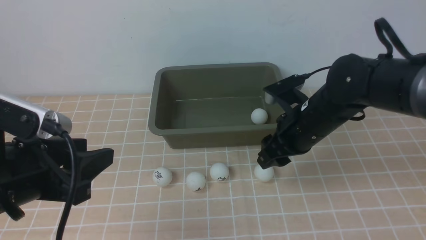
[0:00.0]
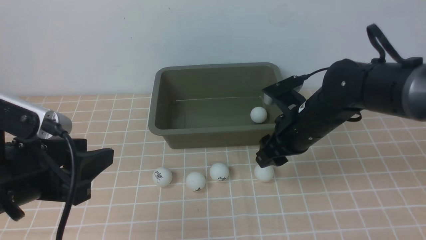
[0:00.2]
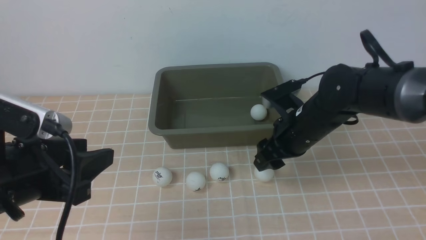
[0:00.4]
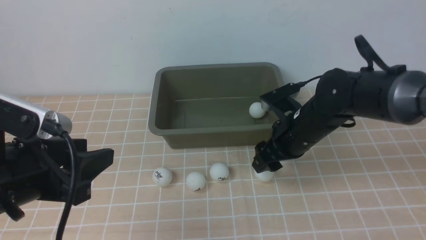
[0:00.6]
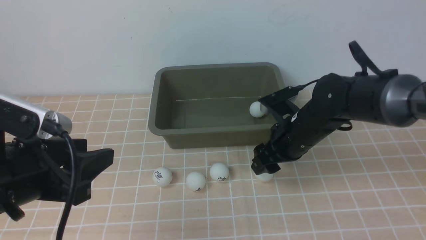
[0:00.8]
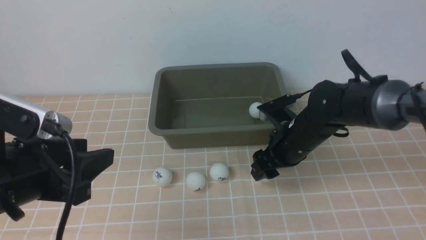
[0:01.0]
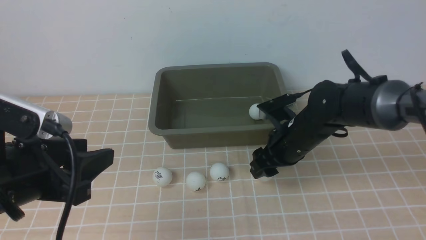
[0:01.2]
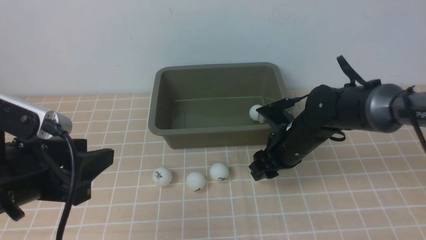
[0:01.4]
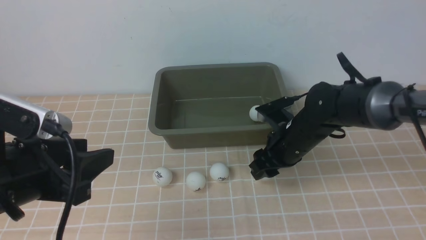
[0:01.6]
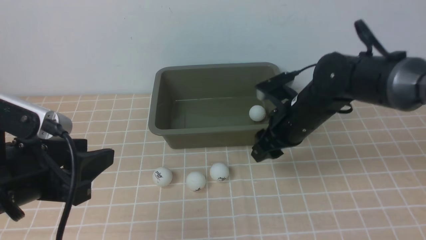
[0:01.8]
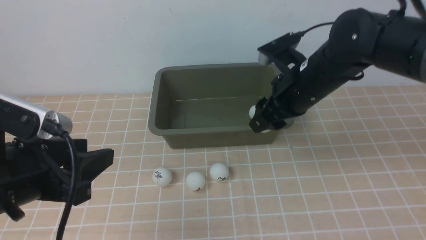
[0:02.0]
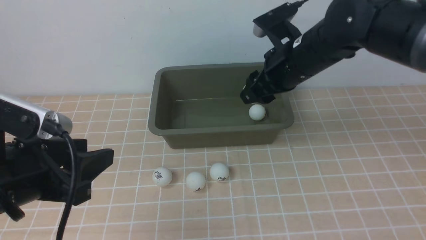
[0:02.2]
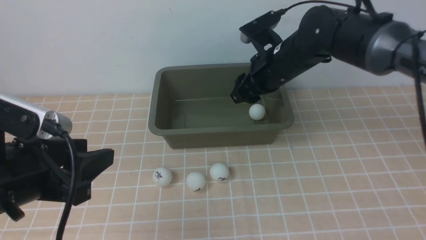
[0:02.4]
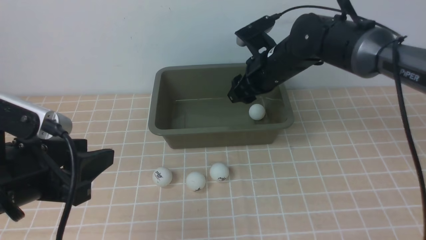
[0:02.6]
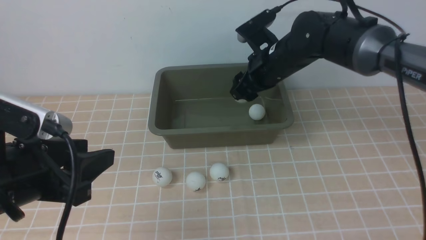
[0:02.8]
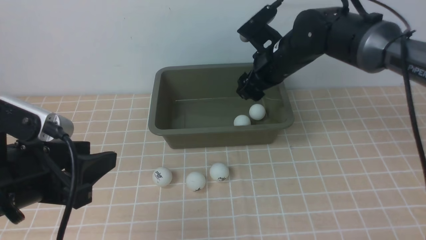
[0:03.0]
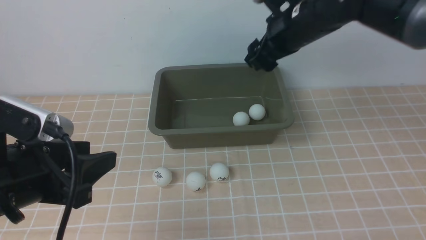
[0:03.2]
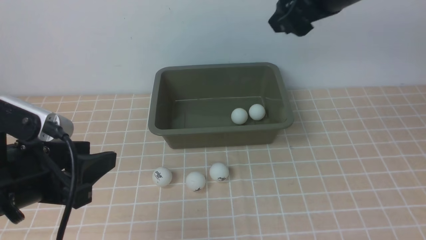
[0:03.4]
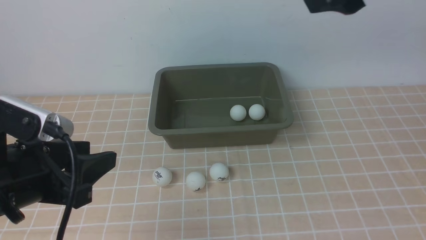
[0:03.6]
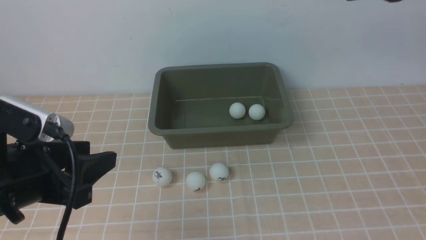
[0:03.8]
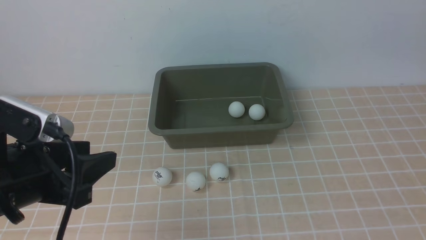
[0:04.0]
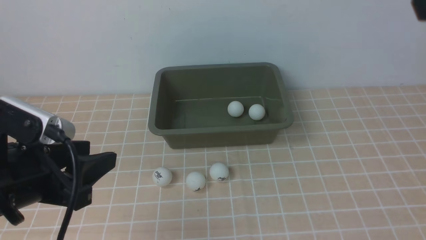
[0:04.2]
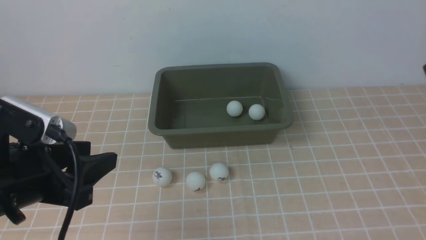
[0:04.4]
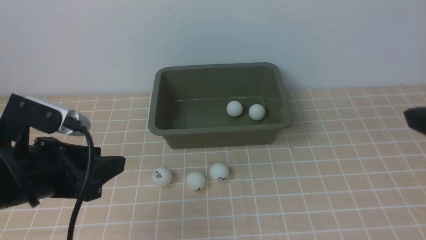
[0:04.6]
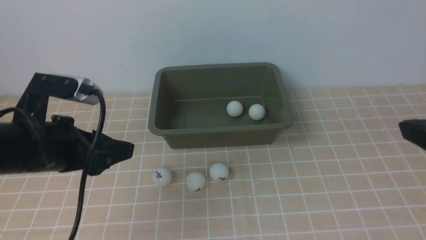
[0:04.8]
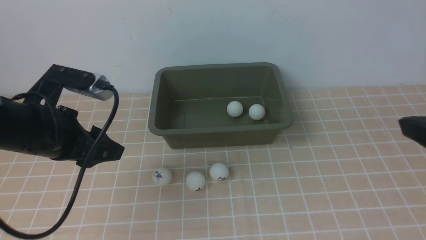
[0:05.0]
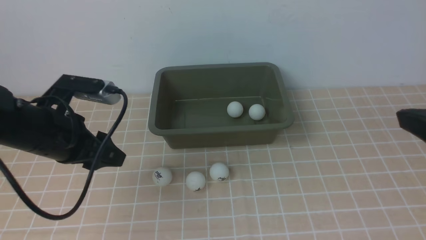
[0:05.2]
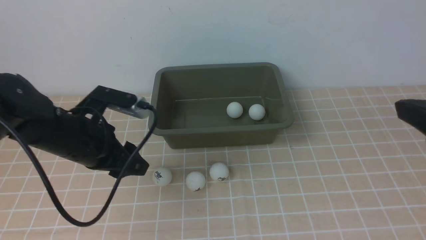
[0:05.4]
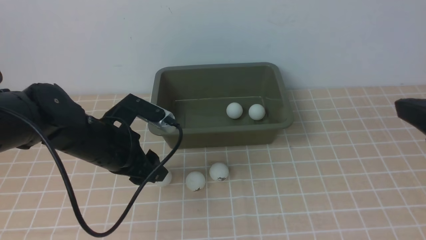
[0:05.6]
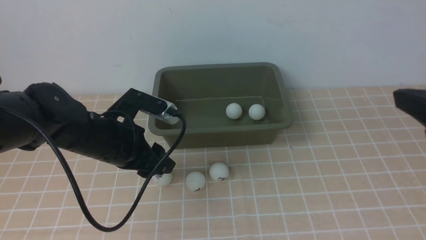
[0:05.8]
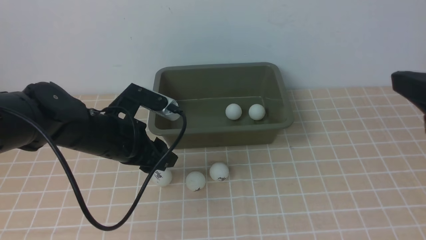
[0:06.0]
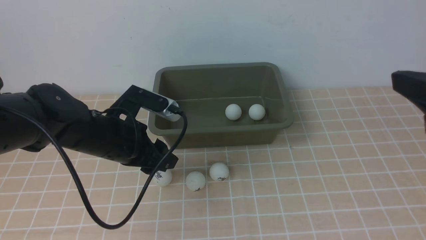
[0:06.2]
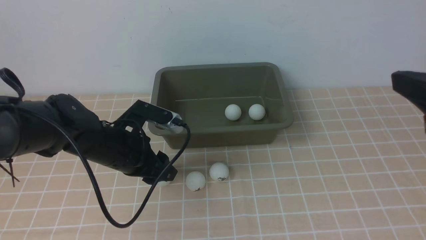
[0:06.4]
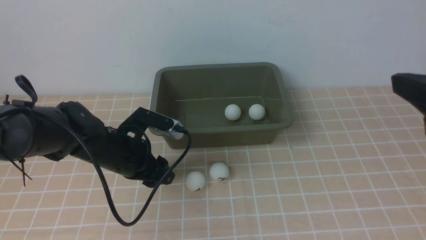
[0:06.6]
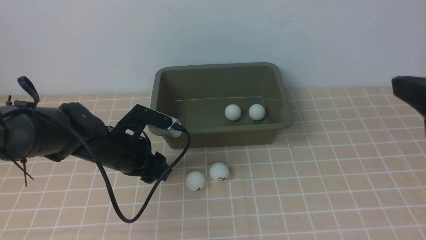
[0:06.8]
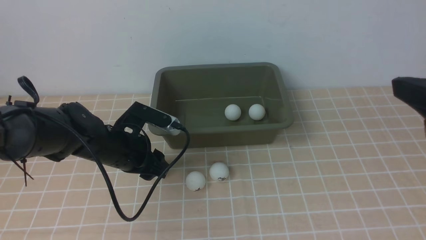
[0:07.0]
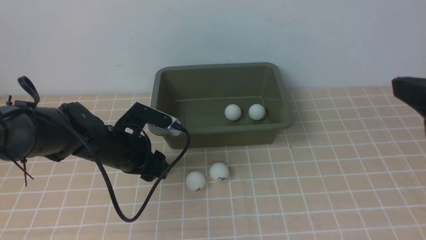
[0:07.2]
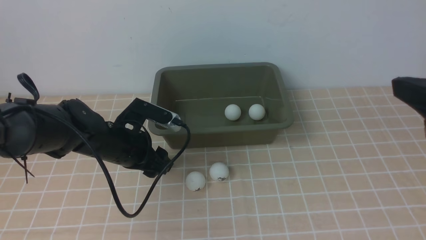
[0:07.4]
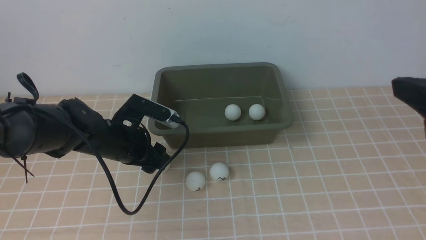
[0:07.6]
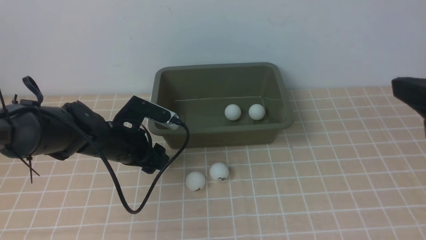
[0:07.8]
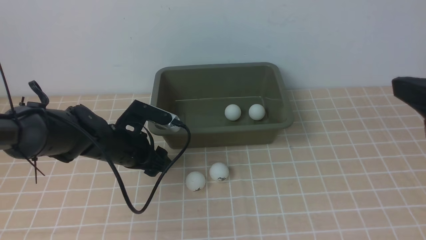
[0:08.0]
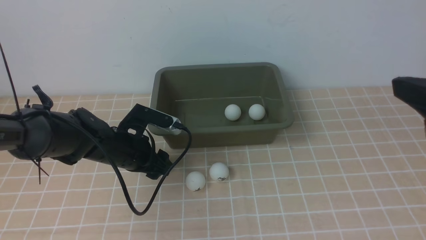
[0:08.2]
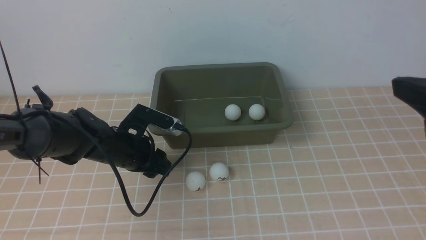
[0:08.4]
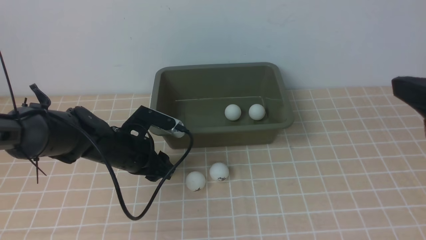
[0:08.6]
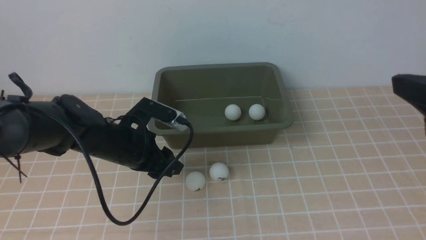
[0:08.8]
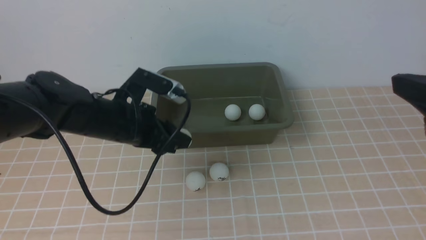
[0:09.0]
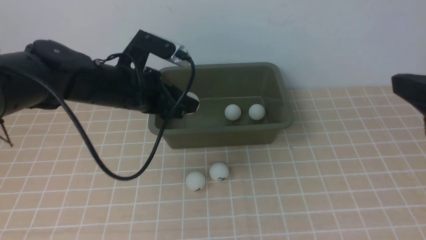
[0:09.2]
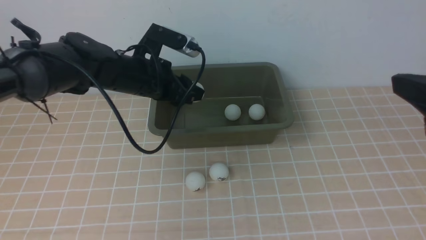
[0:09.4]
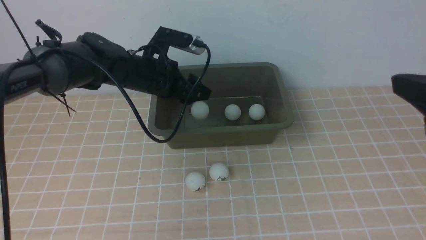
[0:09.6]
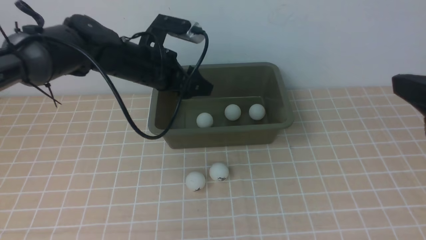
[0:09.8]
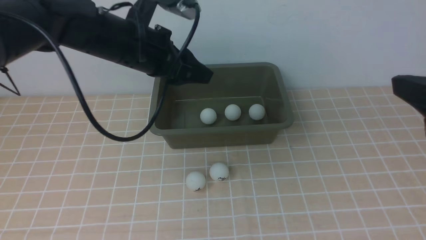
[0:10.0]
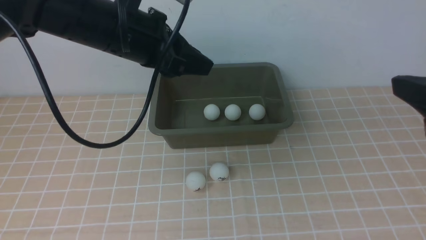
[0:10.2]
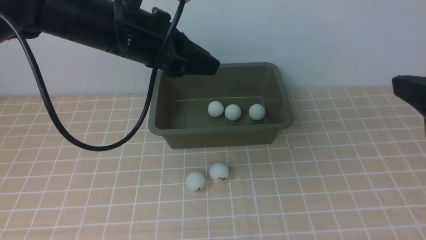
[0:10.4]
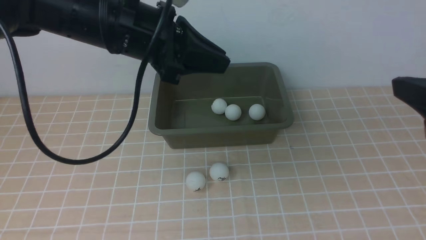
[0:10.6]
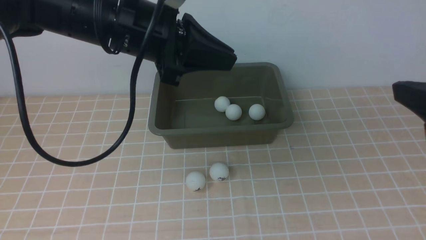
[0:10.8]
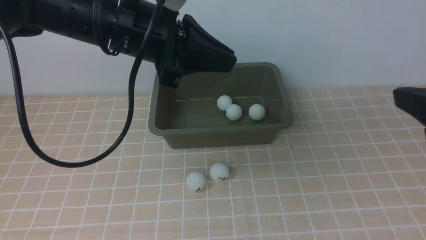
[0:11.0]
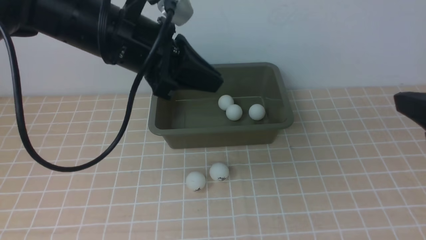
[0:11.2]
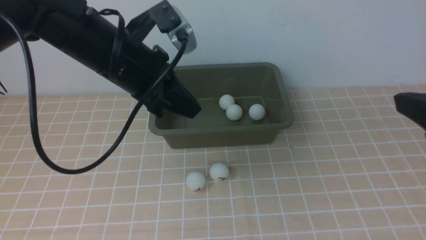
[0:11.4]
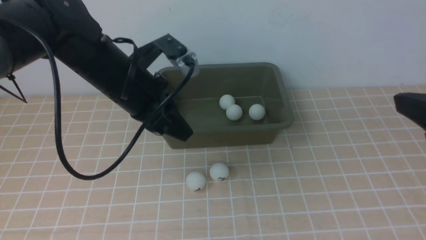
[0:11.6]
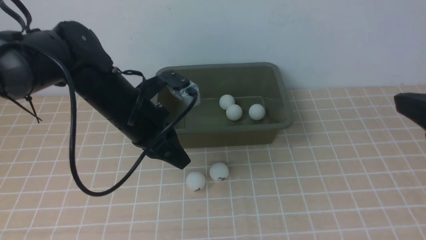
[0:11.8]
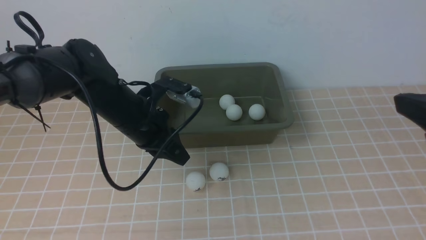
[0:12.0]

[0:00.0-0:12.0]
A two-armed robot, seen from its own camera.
Step, 0:00.0 to 0:01.8: use the right arm to clamp the table tennis ball closest to it.
Step, 0:02.0 to 0:03.2: use the right arm to put the table tennis ball into the box.
Step, 0:03.4 to 0:08.6: use the left arm to clamp the table tennis ball closest to it.
Step, 0:08.8 to 0:10.0: use the left arm to put the table tennis ball into the box.
0:00.0 to 0:01.6: The right gripper changes place by approximately 5 cm.
0:01.6 to 0:03.0: The right gripper heads upward and forward, covering roughly 15 cm.
0:03.0 to 0:04.4: The right gripper travels backward, upward and to the right by approximately 35 cm.
0:04.4 to 0:06.0: The left gripper shifts some 15 cm forward, downward and to the right.
0:06.0 to 0:07.6: The left gripper moves downward, approximately 5 cm.
0:07.6 to 0:09.0: The left gripper heads upward, covering roughly 5 cm.
0:09.0 to 0:10.4: The left gripper goes approximately 15 cm upward.
0:10.4 to 0:12.0: The left gripper travels downward by approximately 15 cm.

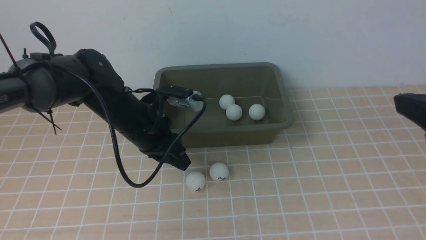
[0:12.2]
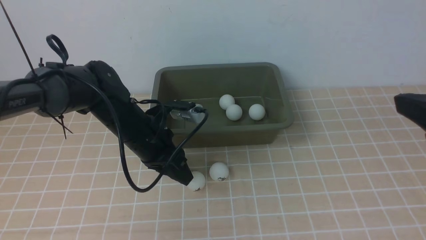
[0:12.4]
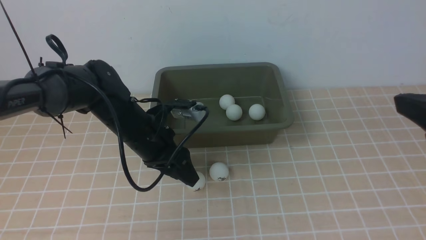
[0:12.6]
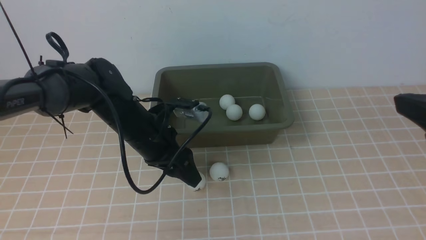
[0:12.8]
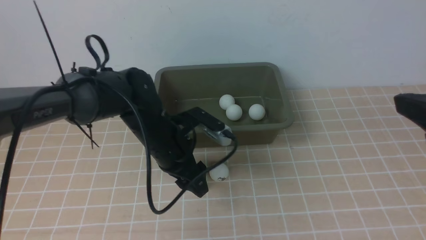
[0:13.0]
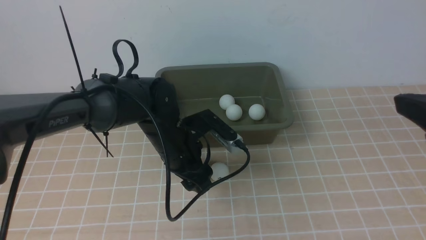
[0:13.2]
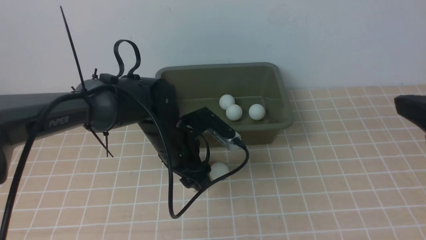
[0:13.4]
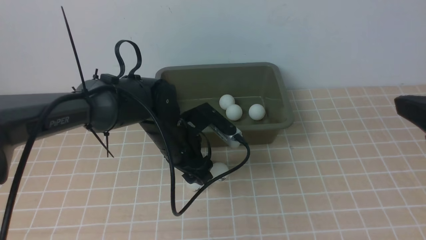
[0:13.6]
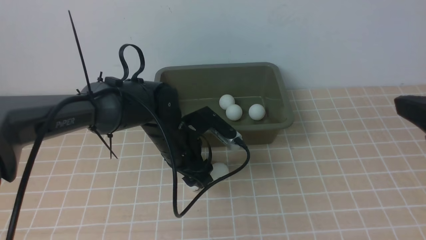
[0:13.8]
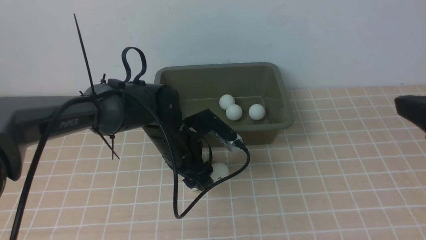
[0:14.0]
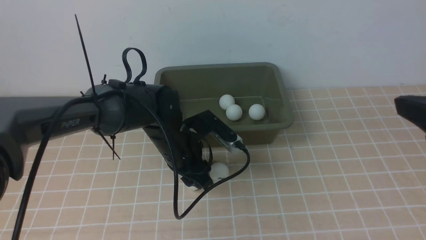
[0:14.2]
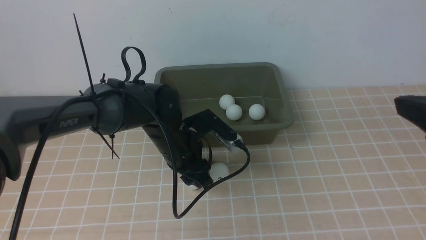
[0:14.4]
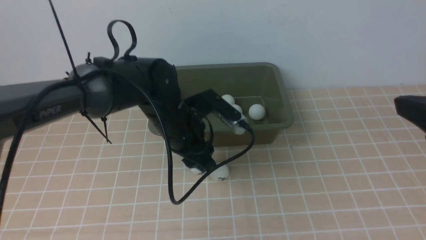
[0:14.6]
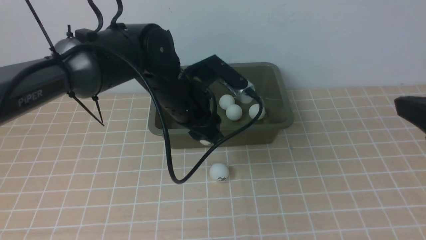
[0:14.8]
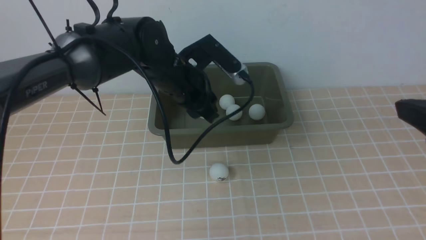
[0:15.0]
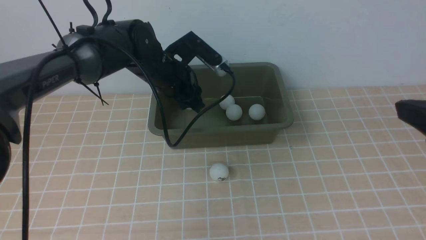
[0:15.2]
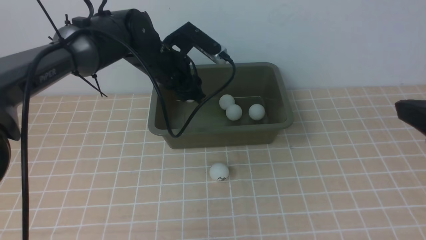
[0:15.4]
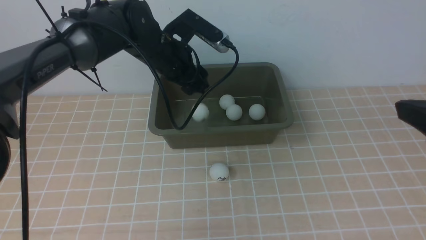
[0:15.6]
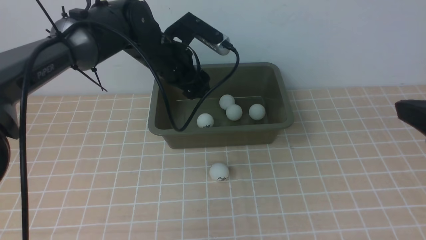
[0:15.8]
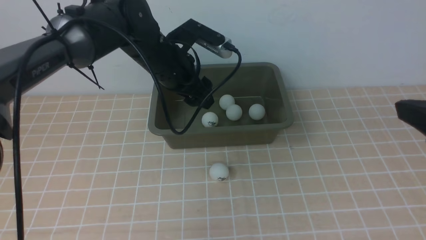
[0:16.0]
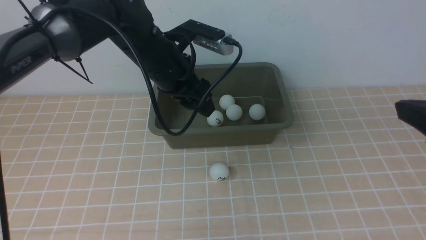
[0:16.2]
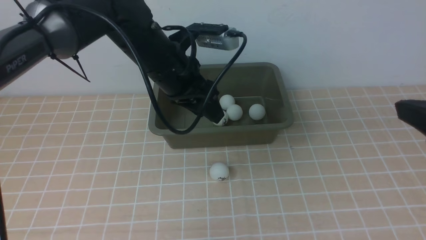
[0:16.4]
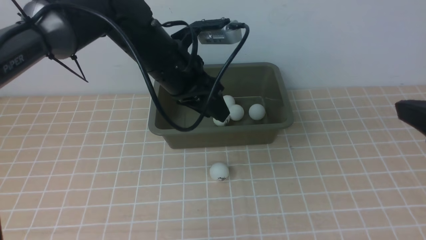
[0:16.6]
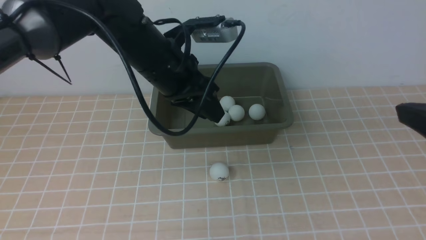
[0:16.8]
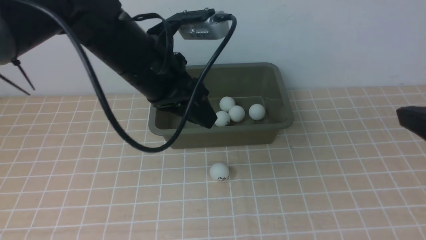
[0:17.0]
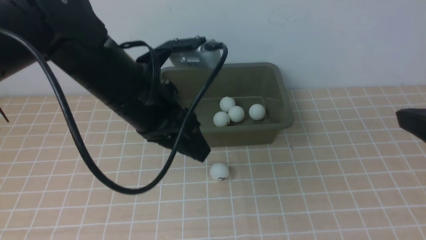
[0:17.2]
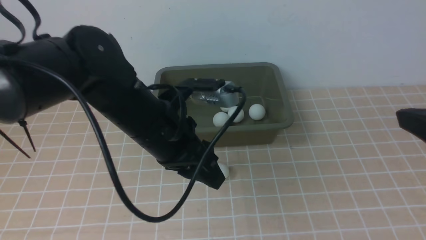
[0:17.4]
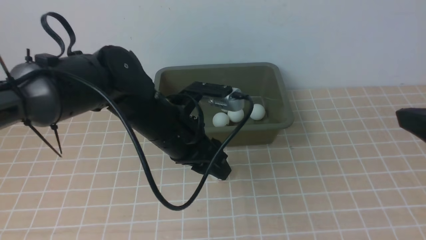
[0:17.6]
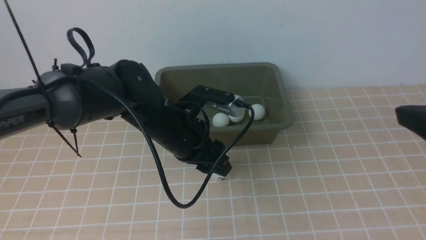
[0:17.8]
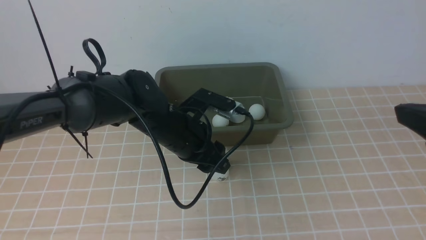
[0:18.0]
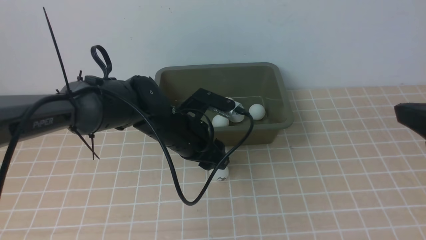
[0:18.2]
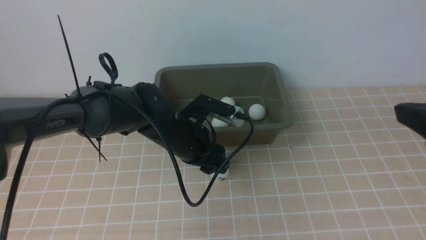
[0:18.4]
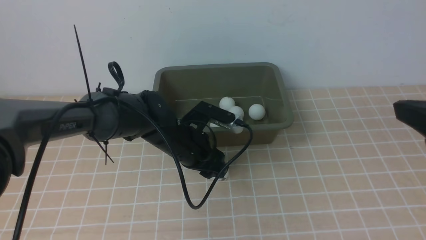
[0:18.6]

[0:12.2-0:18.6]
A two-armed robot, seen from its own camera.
Step, 0:12.2 to 0:14.6: use the left arm to clamp the table tennis ball closest to it.
Step, 0:14.8 to 0:16.0: use the left arm to put the table tennis ball into the box.
0:12.2 to 0:13.8: The left gripper moves to the right, some 5 cm, and opens its fingers.
0:13.8 to 0:15.4: The left gripper shifts roughly 15 cm forward and upward.
0:15.4 to 0:17.0: The left gripper moves backward and upward, about 15 cm.
0:17.0 to 0:18.6: The left gripper goes some 15 cm downward.
